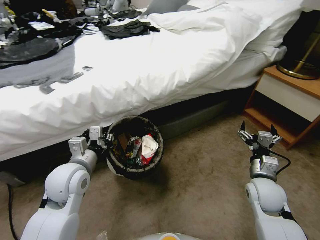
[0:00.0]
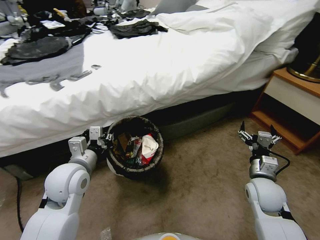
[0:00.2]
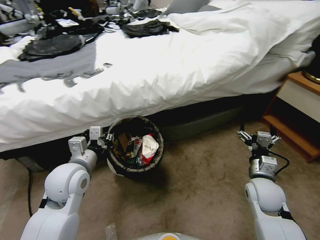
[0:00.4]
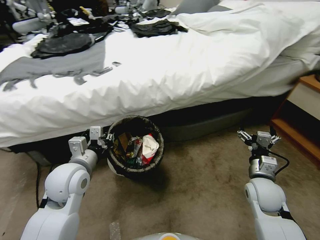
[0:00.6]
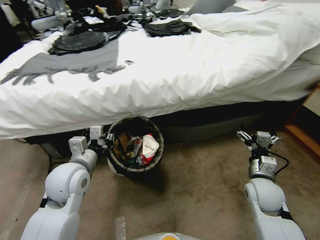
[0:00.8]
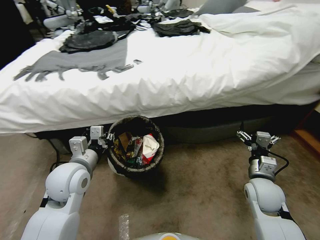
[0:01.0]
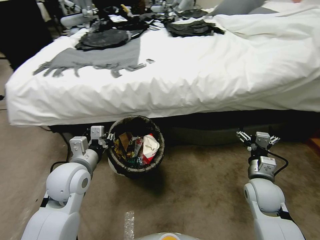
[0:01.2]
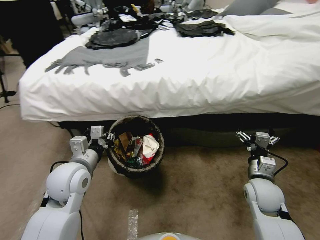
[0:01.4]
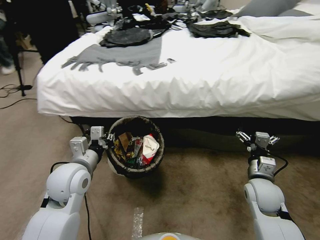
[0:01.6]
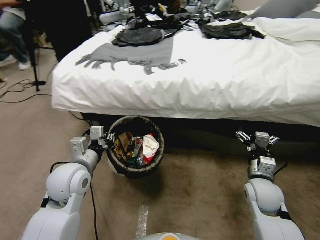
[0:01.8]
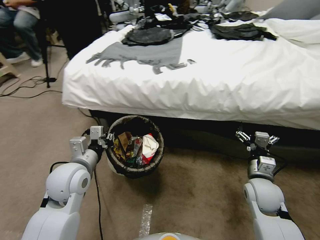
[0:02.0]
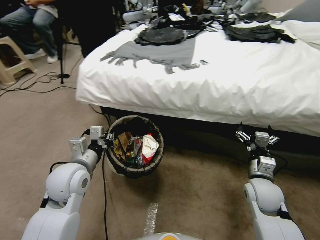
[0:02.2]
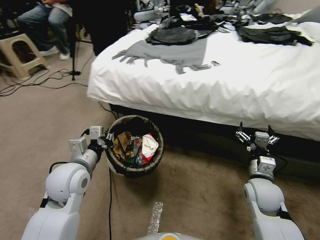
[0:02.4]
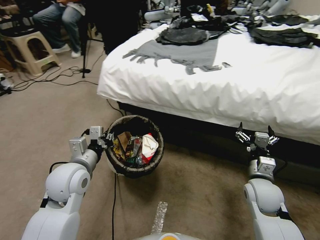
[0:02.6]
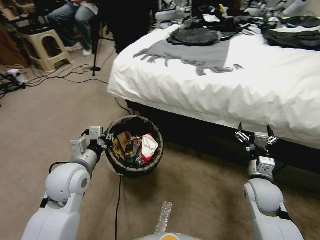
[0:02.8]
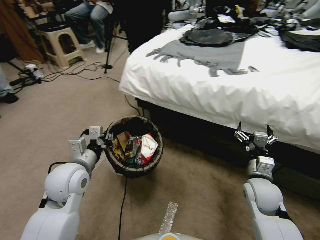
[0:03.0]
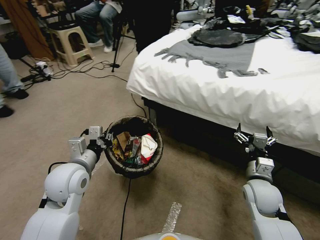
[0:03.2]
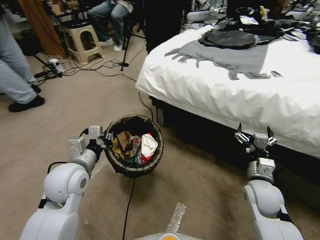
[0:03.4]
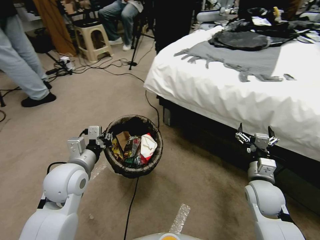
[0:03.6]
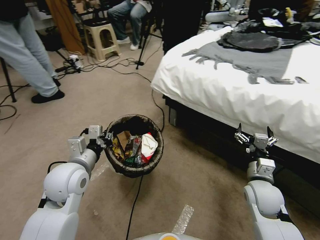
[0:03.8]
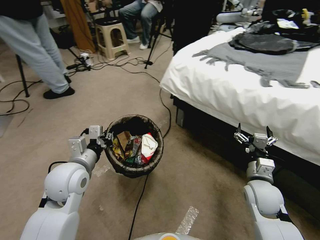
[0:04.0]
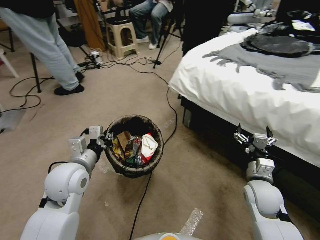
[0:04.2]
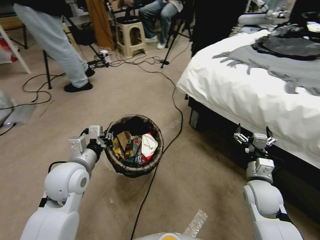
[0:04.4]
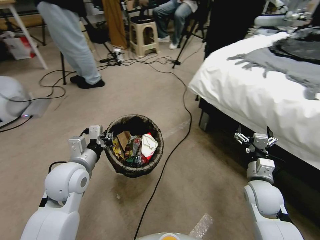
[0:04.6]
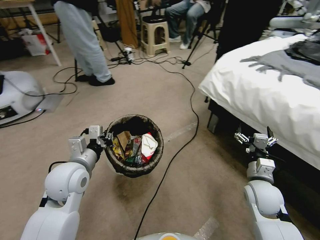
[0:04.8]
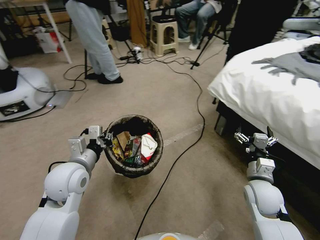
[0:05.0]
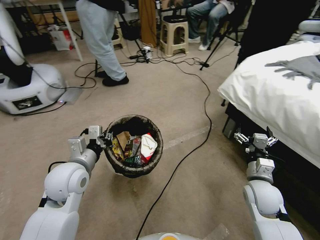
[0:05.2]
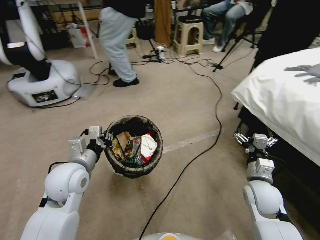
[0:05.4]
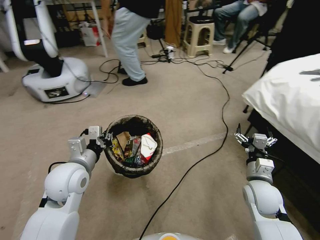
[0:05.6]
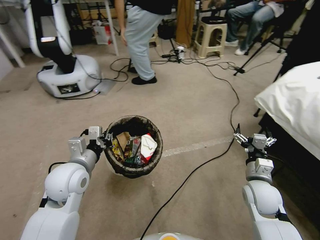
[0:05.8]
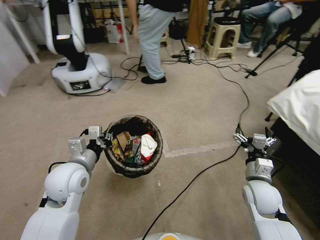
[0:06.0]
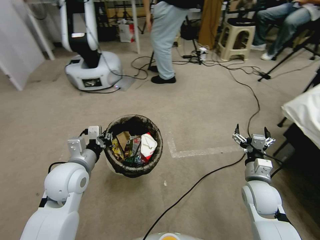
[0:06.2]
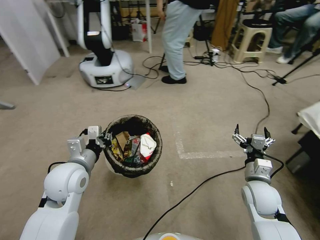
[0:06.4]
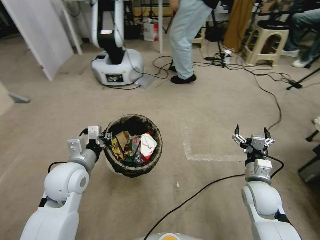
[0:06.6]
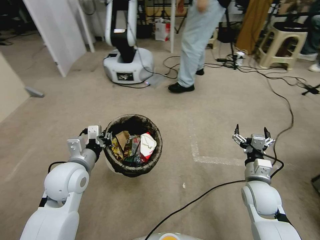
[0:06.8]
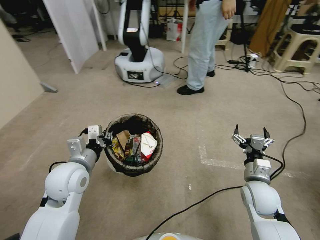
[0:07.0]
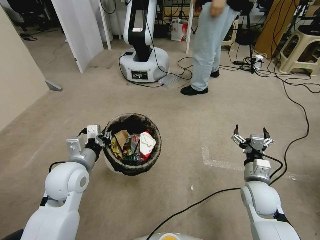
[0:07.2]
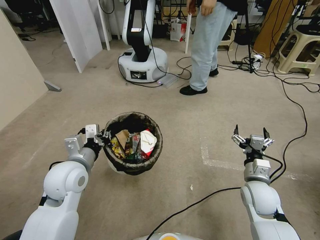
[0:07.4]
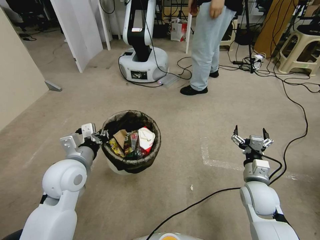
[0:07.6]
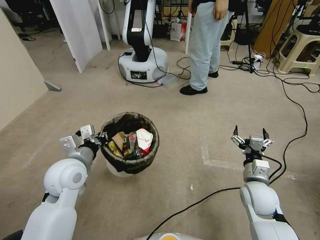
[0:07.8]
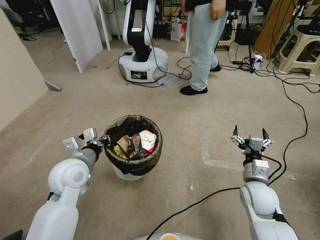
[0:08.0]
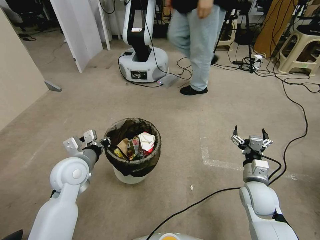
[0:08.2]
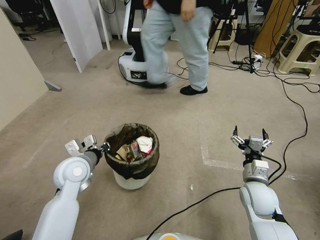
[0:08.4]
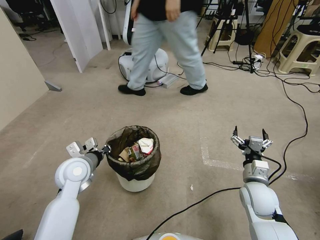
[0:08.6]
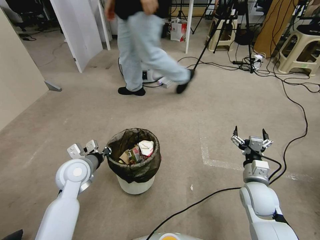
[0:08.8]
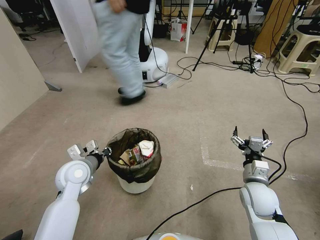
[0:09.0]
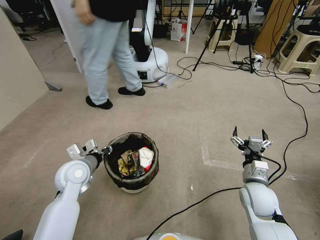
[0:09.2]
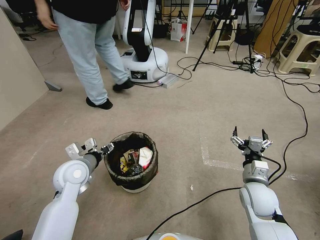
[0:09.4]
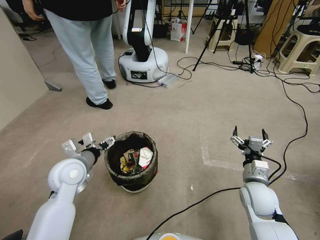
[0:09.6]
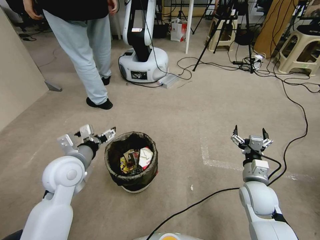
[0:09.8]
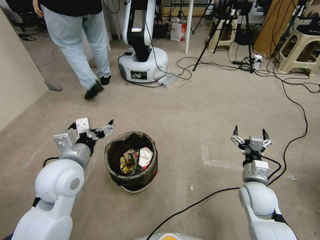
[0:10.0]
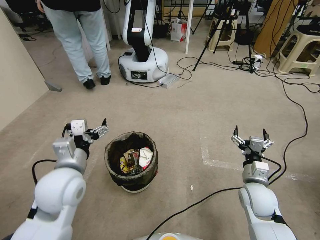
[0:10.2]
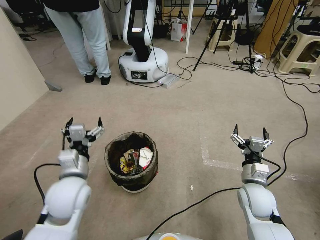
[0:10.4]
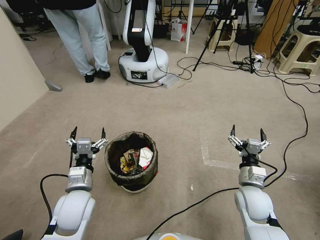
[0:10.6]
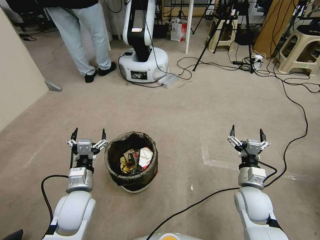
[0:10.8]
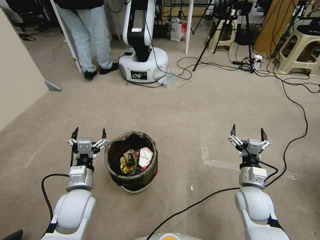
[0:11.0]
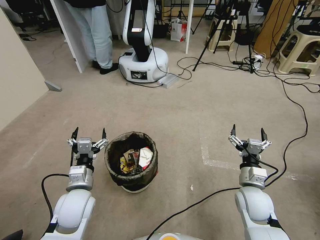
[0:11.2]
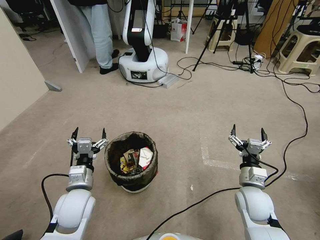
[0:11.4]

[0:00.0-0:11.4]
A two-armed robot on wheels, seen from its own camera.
Task of the whole recording: Pick up the trash bin, then pick up the garbage from the floor and place it into the trash bin.
0:07.2 to 0:08.6: The left gripper shifts by about 5 cm.
0:08.6 to 0:10.0: The left gripper goes approximately 10 cm upward and backward, and opens.
0:10.0 to 0:11.4: The left gripper heads downward, covering roughly 15 cm.
